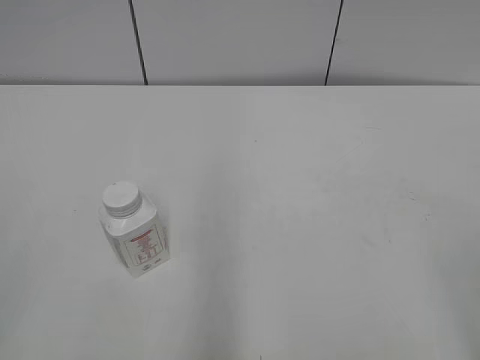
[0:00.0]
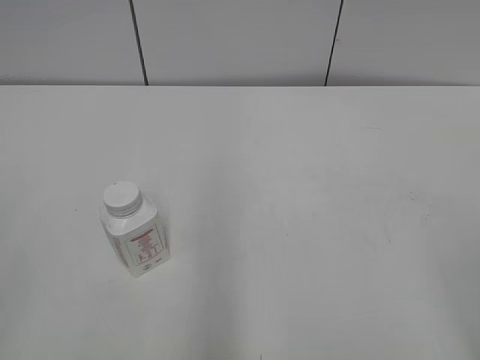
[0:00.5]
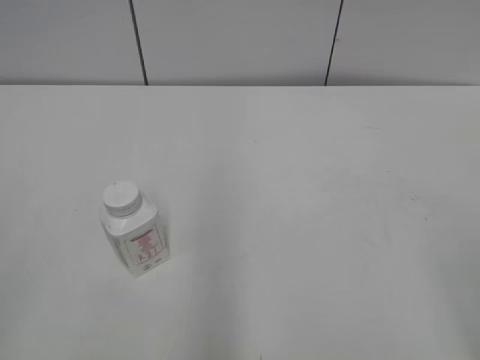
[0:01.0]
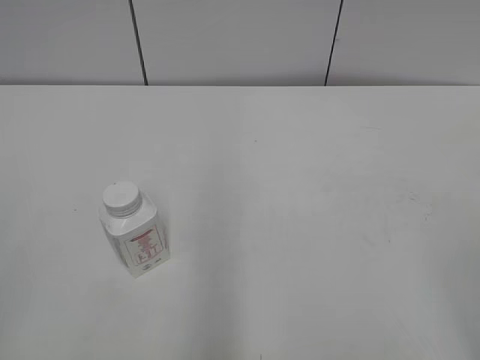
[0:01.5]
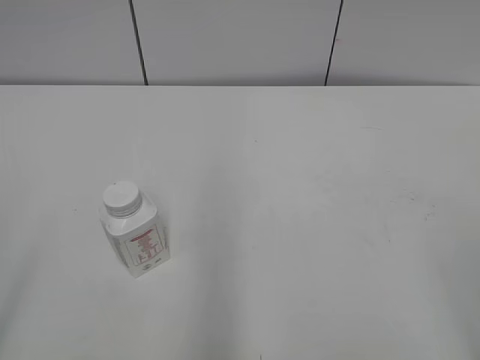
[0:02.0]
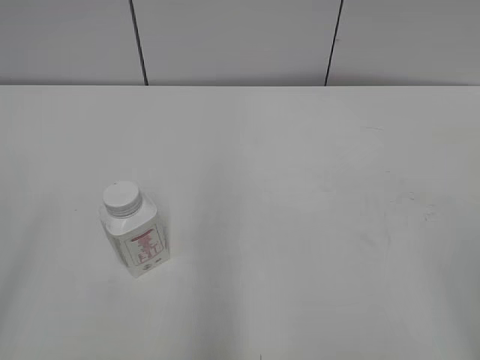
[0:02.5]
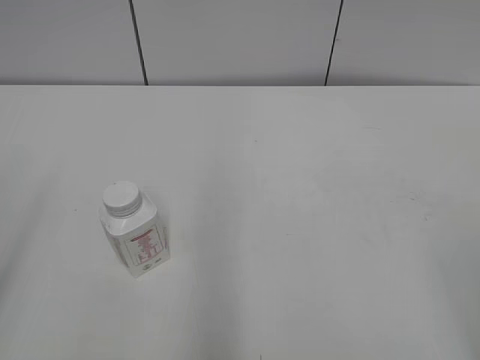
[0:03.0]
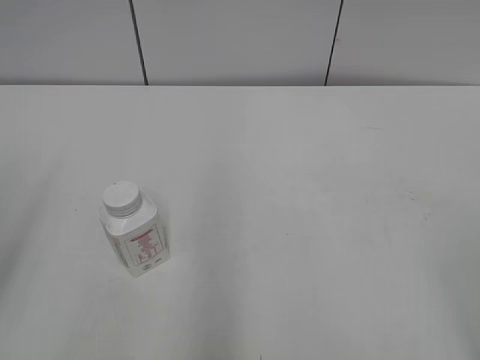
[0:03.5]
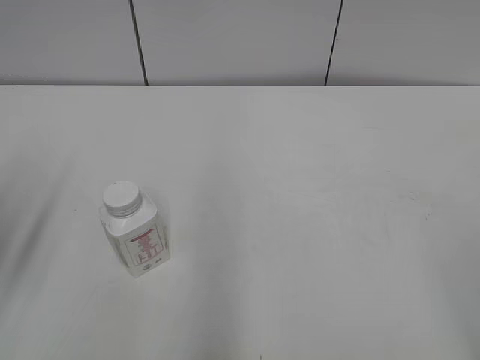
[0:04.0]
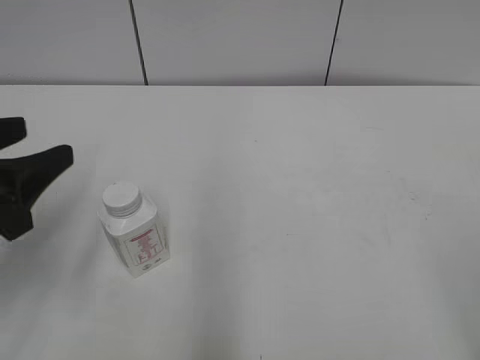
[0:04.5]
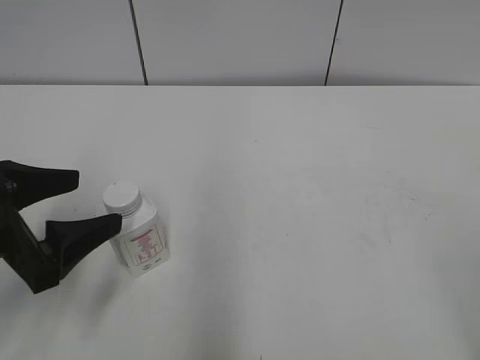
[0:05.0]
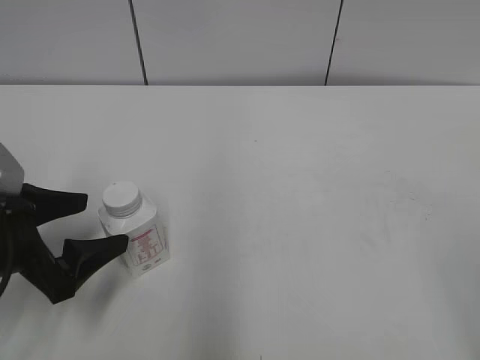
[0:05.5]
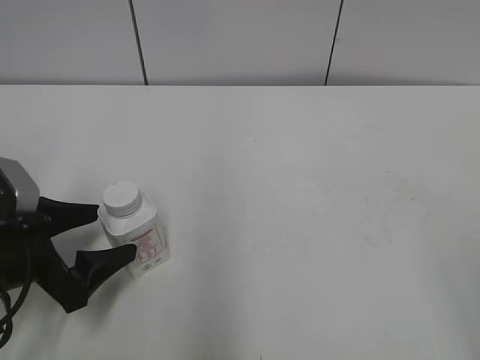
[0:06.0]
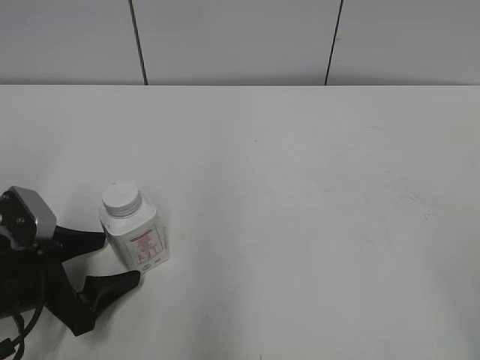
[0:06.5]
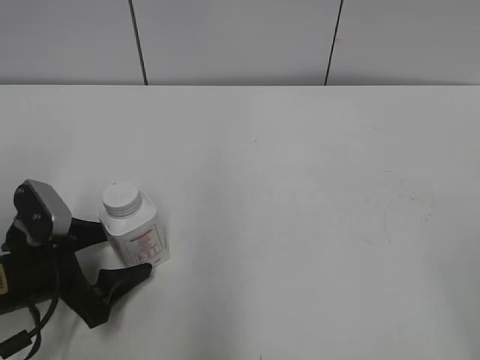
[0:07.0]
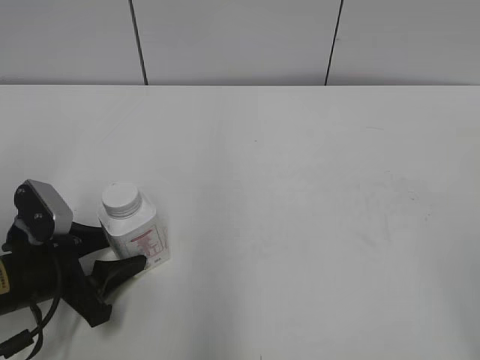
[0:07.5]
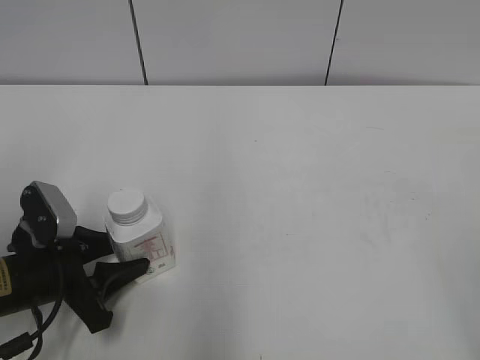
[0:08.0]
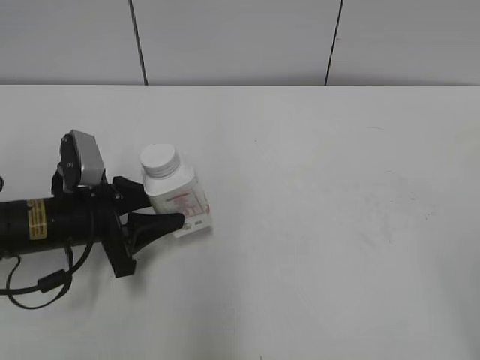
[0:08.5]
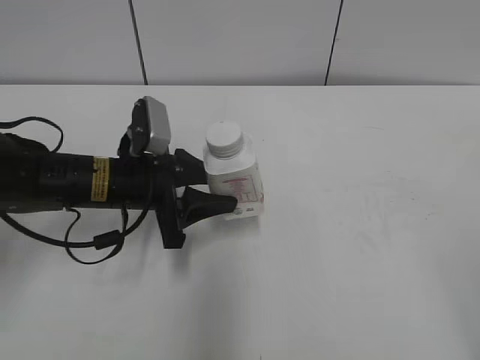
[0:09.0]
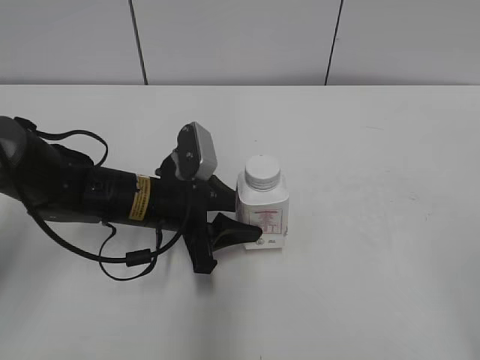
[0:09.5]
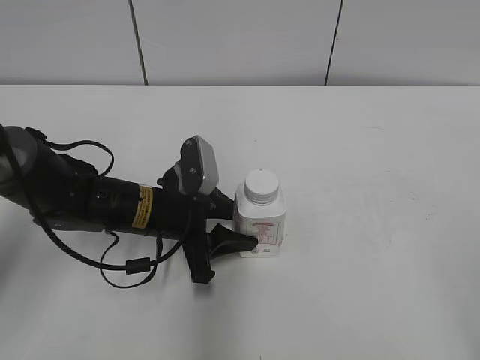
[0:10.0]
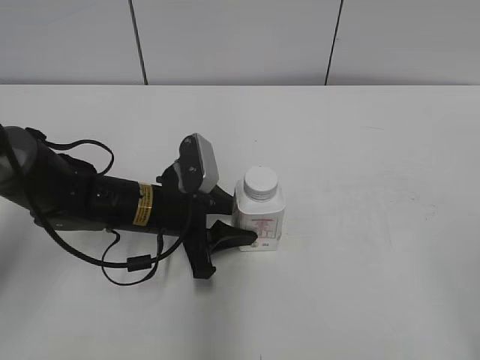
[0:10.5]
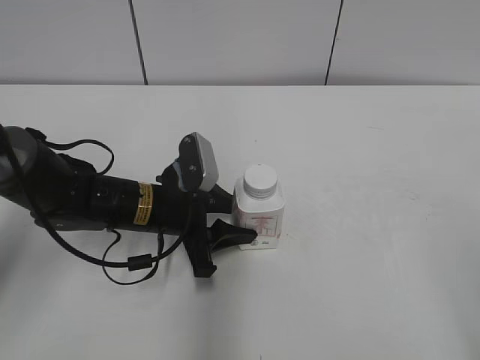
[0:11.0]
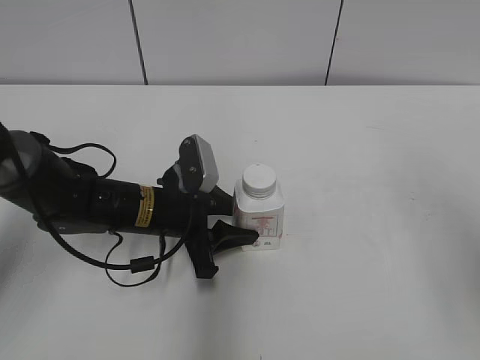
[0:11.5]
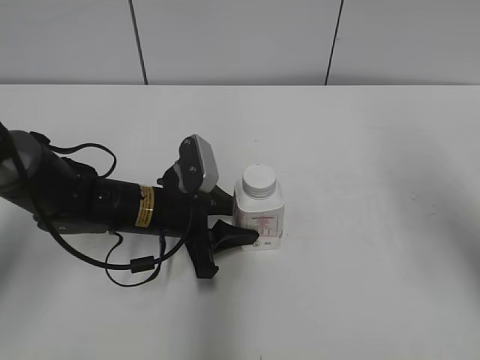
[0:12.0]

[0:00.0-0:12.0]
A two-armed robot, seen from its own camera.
Step, 0:00.0 to 0:07.5: Grab the Yili Changqing with the left hand.
Step, 0:08.0 to 0:10.5: Move the Yili Changqing from left to right.
0:04.0 to 0:06.0: The left gripper heads downward and to the right, covering roughly 15 cm, and opens.
0:06.0 to 0:08.0: The left gripper closes its fingers.
0:08.0 to 0:10.0: The left gripper travels to the right and forward by some 15 cm.
0:10.0 to 0:12.0: The right gripper shifts approximately 20 cm forward, and closes.

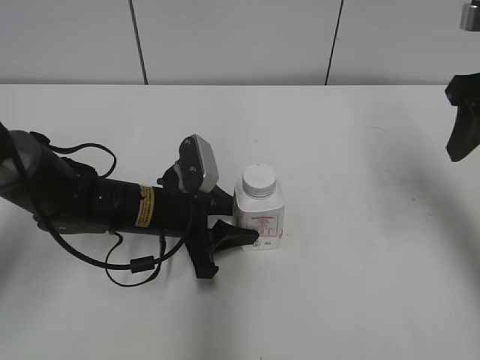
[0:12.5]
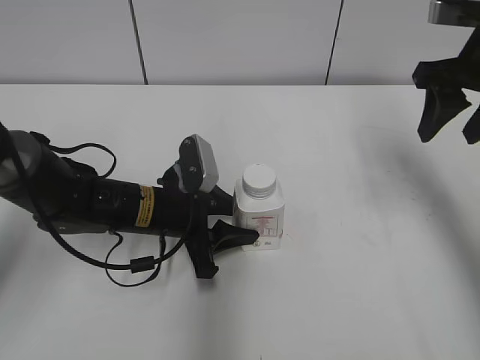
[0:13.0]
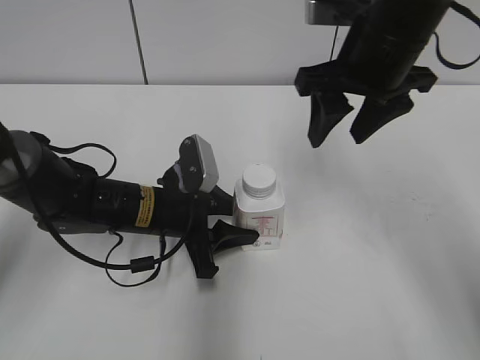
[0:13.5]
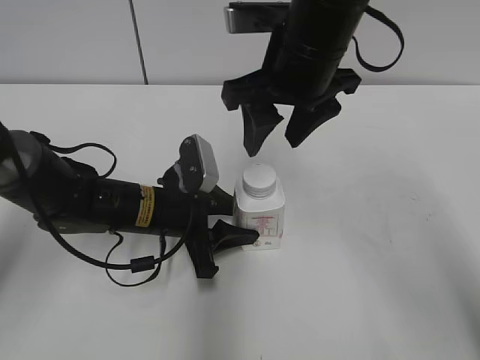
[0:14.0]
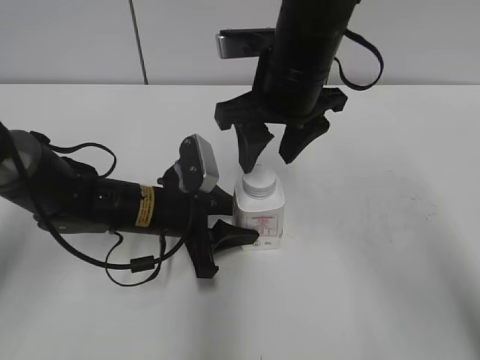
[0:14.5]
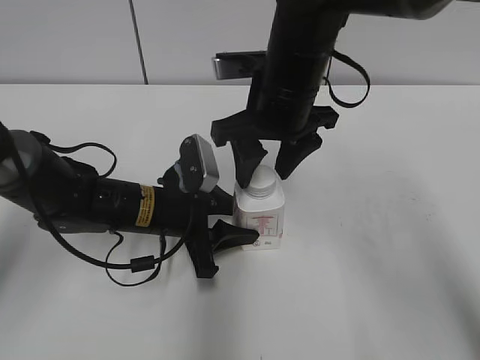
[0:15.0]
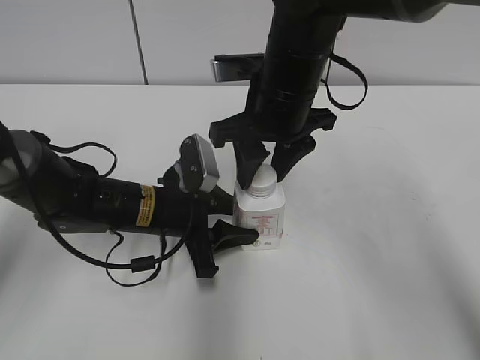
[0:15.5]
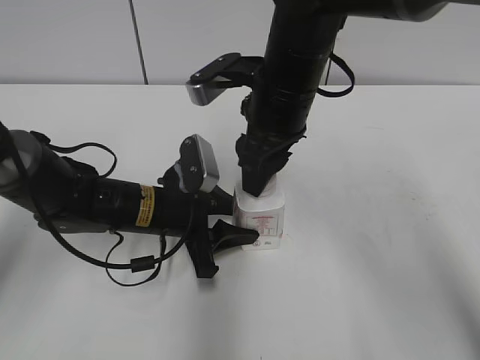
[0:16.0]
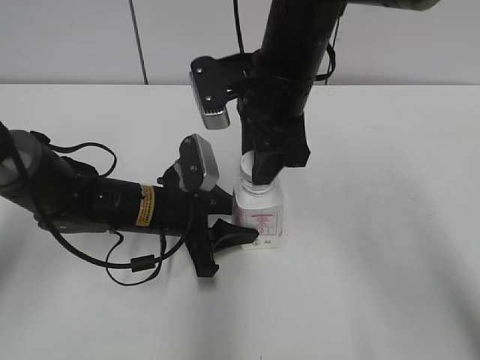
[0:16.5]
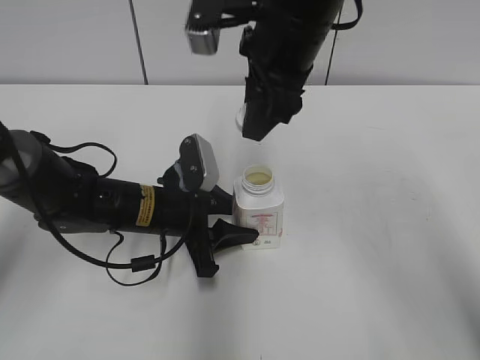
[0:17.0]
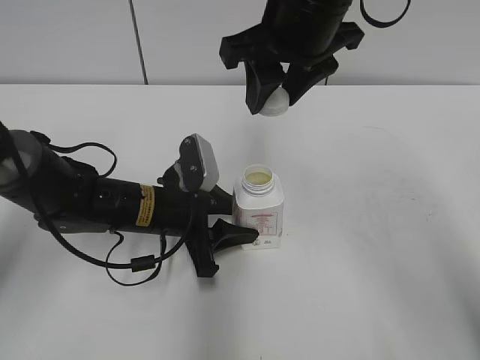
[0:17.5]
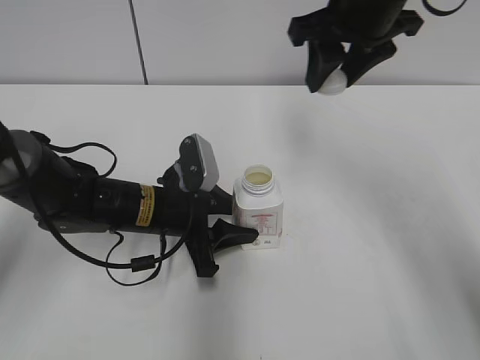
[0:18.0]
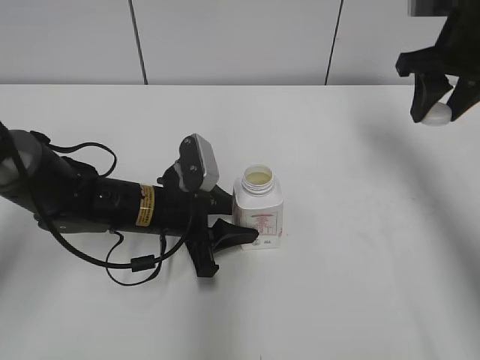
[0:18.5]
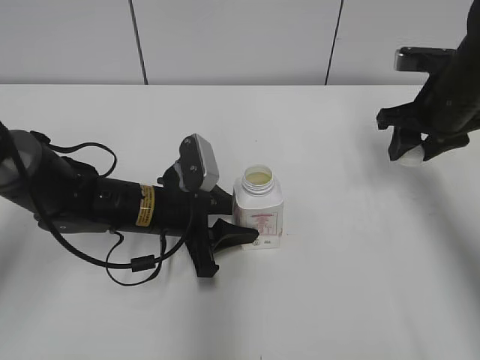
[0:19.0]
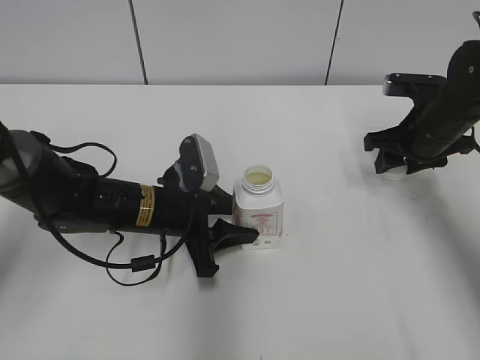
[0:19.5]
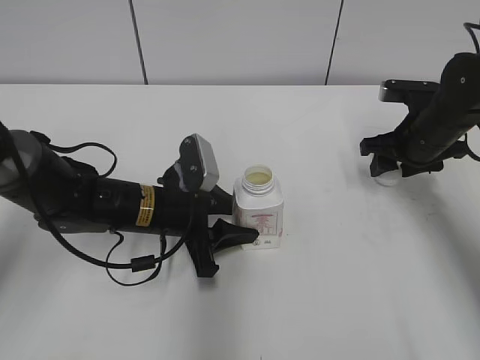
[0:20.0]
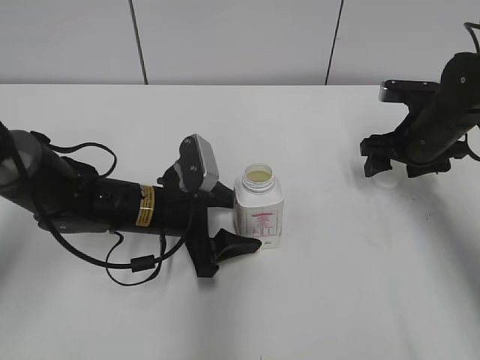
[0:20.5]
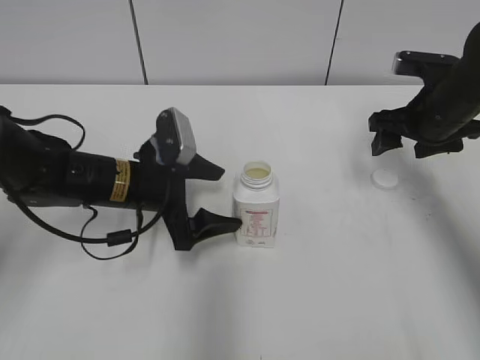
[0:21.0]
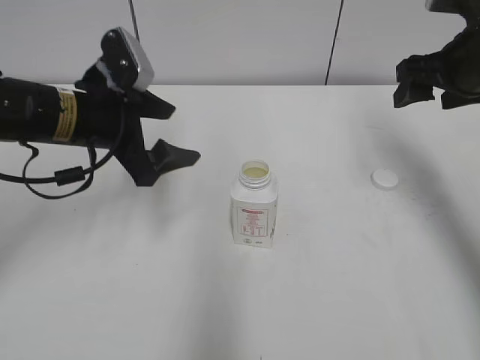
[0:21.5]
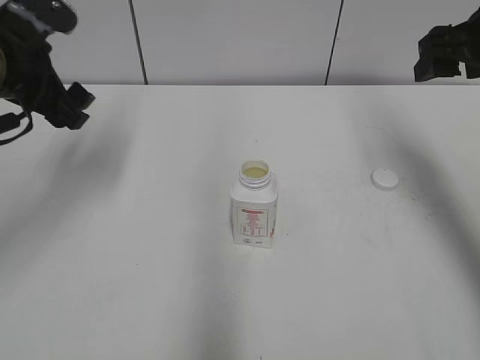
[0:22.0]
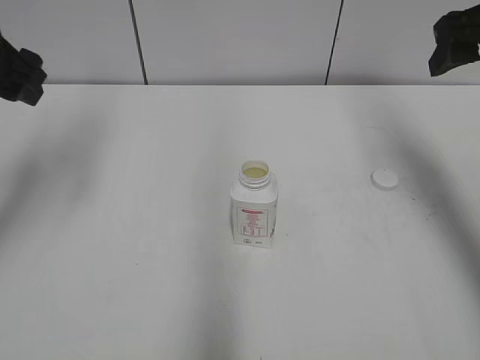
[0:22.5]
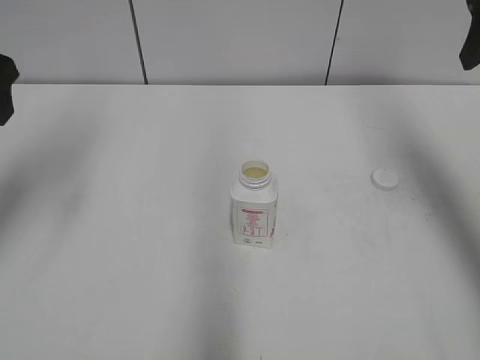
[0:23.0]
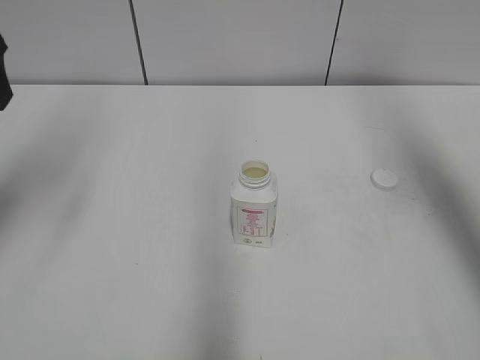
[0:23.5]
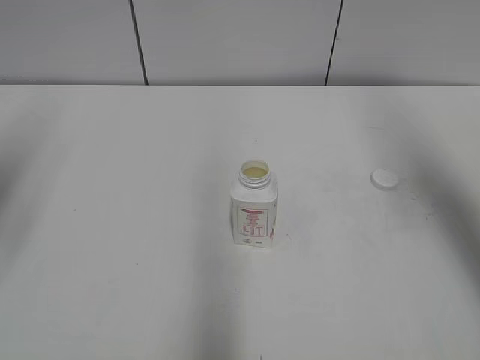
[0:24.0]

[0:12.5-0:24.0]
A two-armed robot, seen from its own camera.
Step, 0:17.0 to 0:20.0: Place the bottle cap on the right.
0:12.5 to 0:14.5: The right gripper travels to the left by some 20 cm.
0:14.5 to 0:16.5: The right gripper closes.
0:16.5 to 0:18.5: The right gripper heads to the right, covering about 20 cm.
0:18.5 to 0:20.0: The right gripper travels downward by roughly 15 cm.
0:20.0 to 0:22.0: The left gripper moves upward and to the left, about 20 cm, and opens up. Meanwhile the right gripper is displaced upward by approximately 15 cm, and opens its fingers.
0:22.0 to 0:24.0: The left gripper moves to the left, backward and upward, roughly 15 cm, while the right gripper heads upward and backward, covering approximately 10 cm.

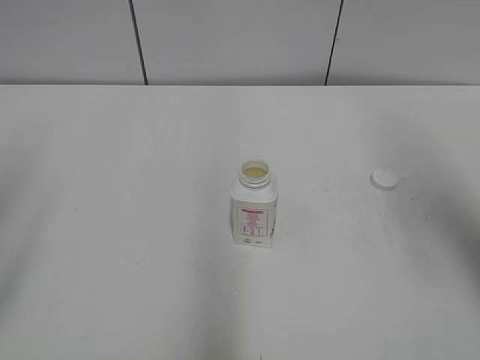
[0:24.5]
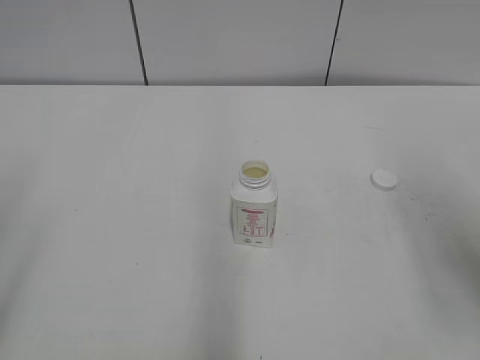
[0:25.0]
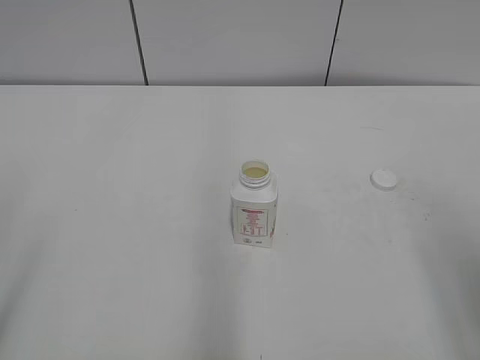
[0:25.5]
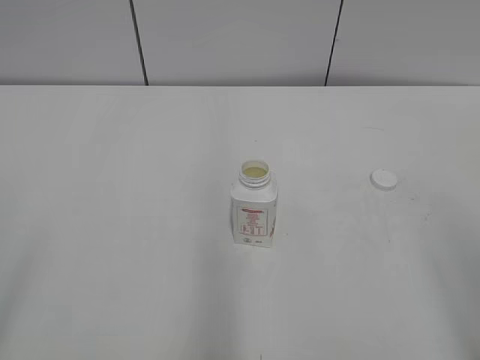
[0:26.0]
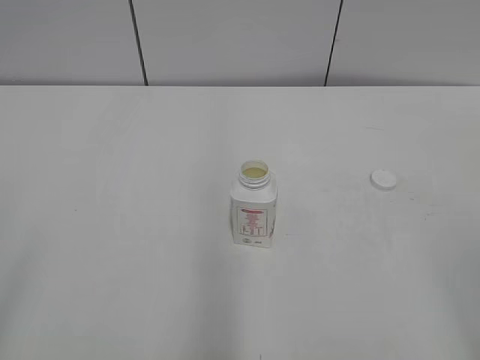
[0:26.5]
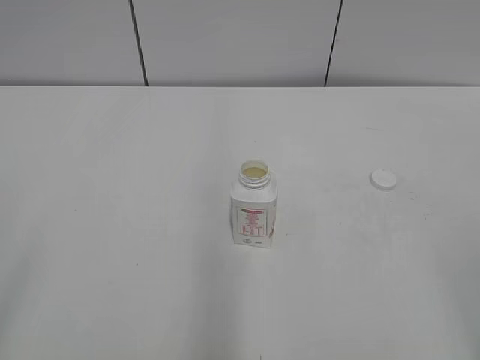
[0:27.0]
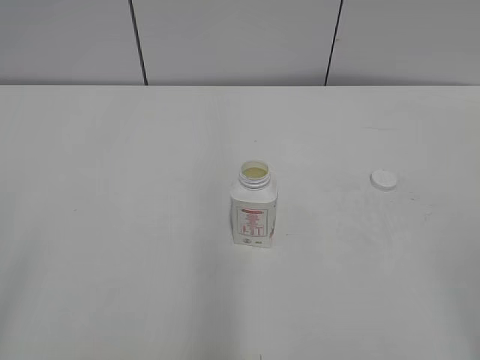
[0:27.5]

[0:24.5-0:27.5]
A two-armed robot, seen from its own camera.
0:24.5 to 0:26.0: The right gripper goes approximately 20 cm backward and downward.
